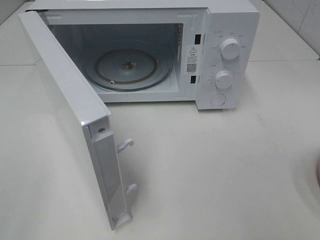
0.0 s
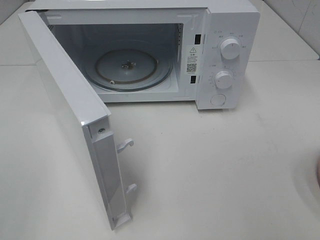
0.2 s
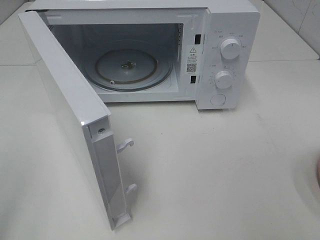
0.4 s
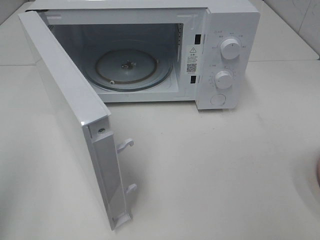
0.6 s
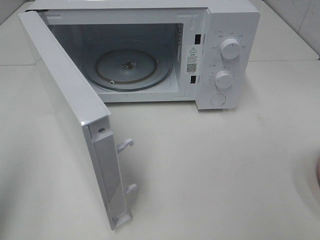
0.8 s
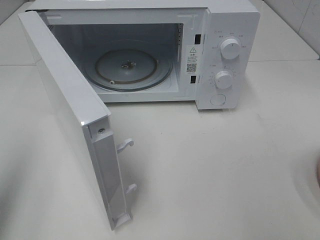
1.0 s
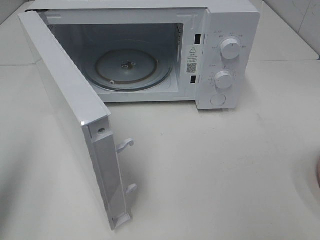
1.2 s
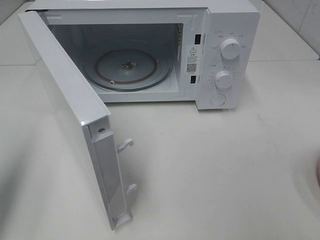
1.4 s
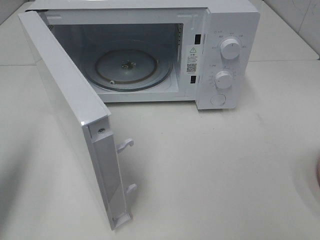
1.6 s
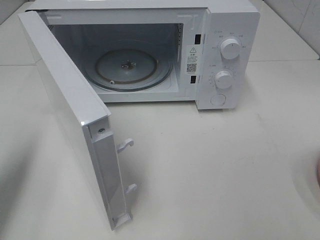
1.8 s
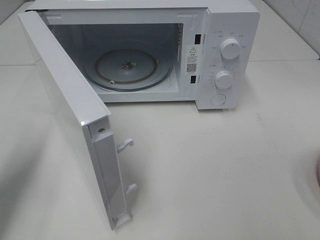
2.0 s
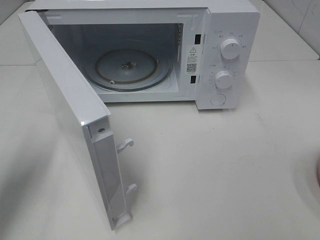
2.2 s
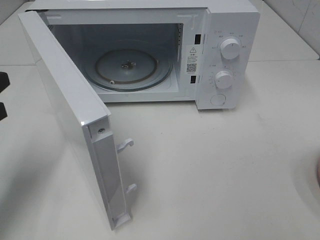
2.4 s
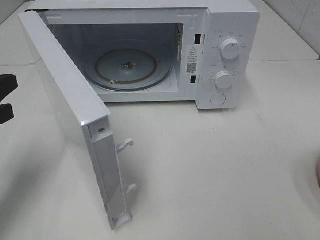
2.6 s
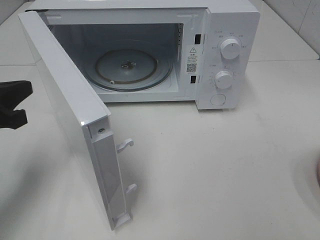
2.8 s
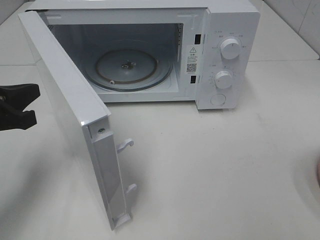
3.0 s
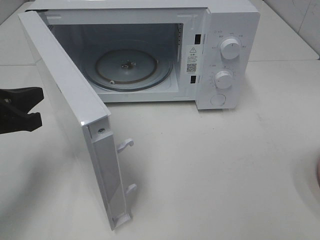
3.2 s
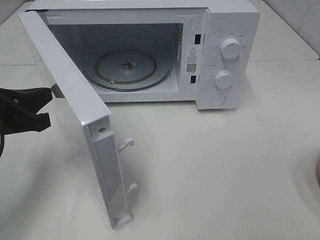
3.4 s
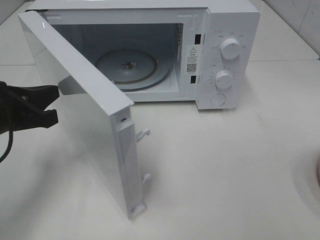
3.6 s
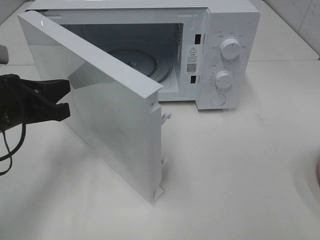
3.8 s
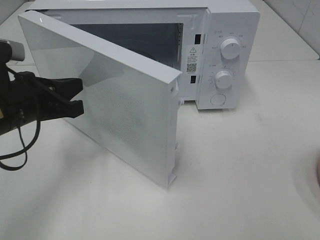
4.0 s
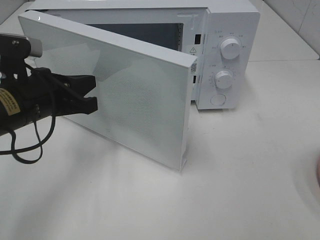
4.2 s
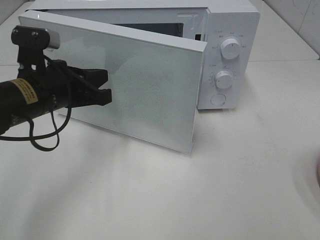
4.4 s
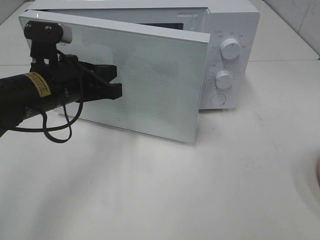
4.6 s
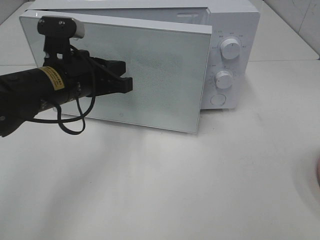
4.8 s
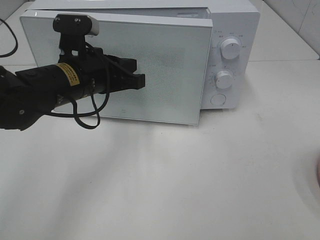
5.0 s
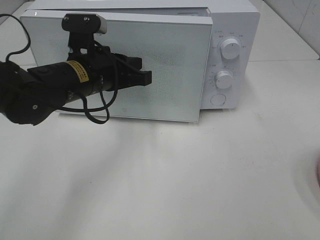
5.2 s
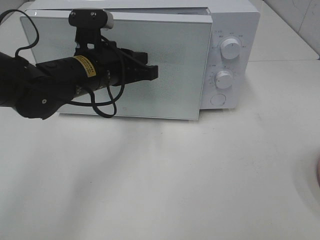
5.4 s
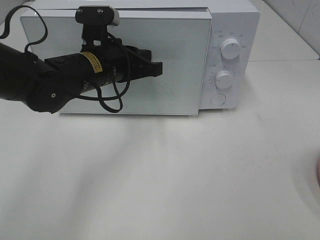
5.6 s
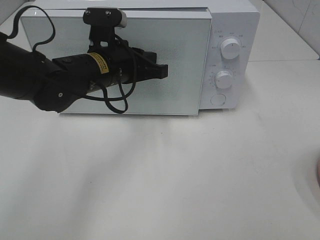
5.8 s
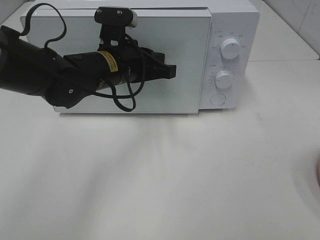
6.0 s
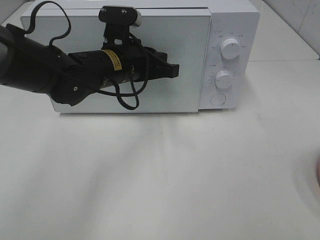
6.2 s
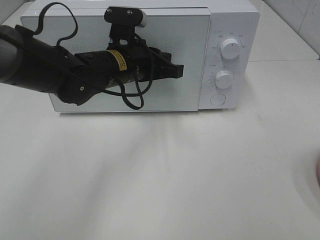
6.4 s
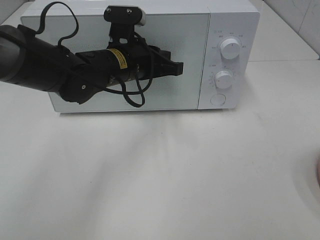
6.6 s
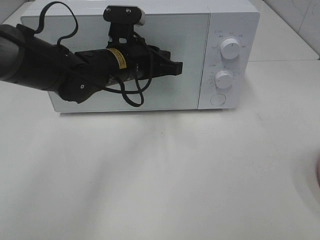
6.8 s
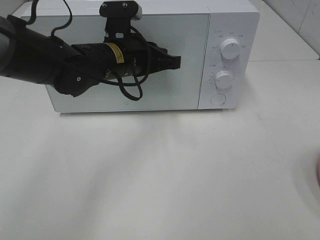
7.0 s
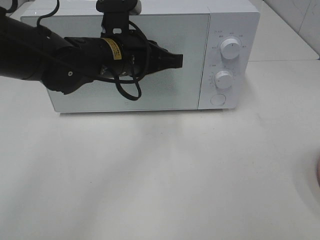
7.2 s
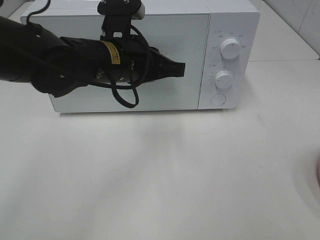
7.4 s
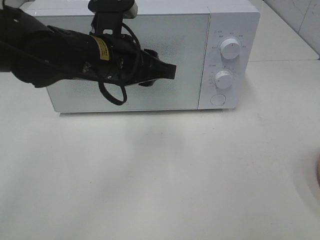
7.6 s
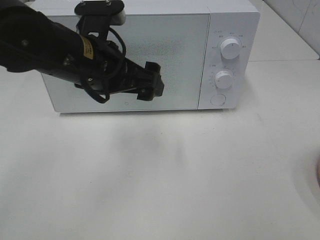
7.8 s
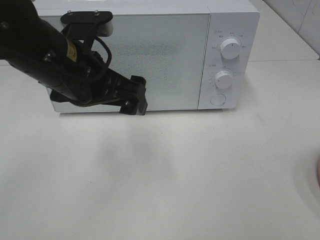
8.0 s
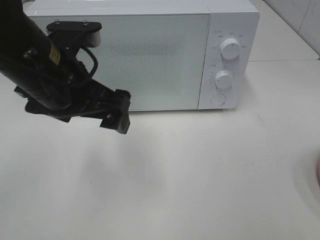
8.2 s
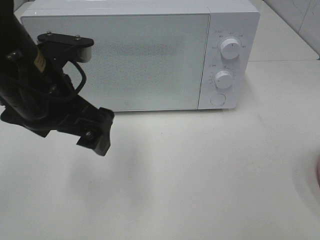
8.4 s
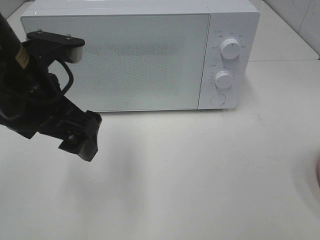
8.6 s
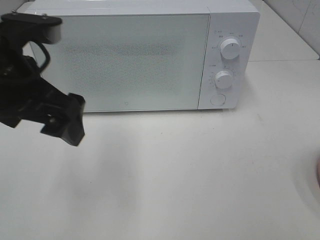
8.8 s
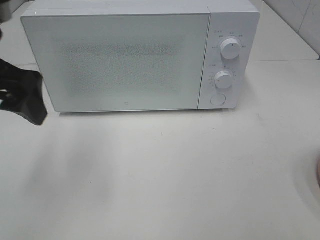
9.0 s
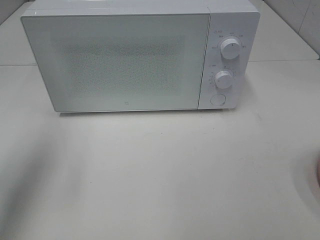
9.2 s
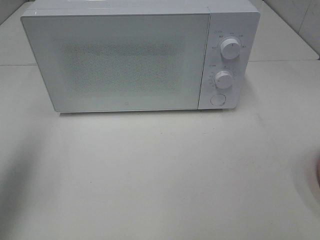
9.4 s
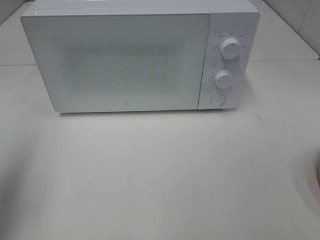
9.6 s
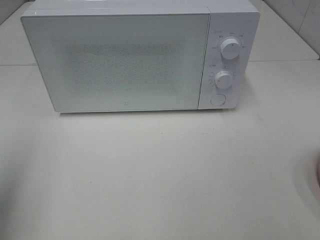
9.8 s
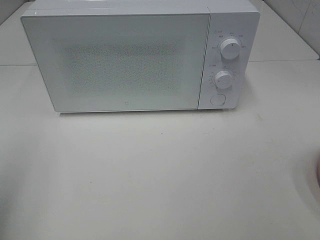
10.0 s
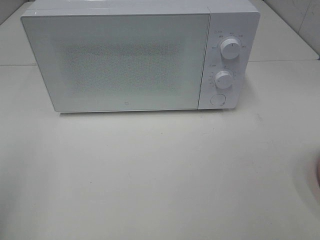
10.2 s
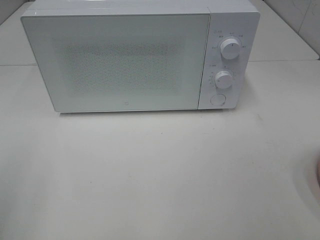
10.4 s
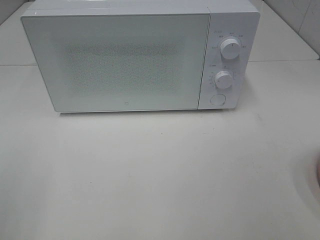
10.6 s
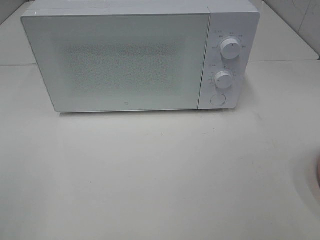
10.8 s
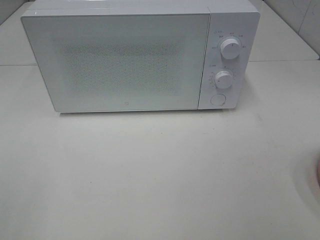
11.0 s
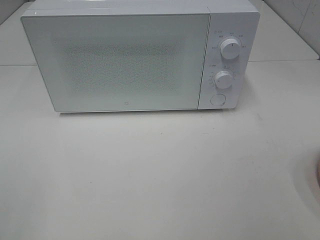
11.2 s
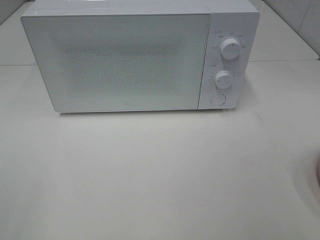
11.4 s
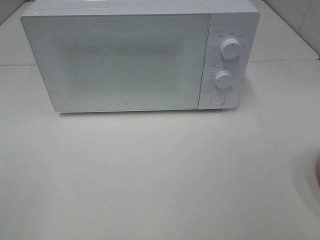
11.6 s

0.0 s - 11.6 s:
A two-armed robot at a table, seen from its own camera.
Task of the whole recording: Heat the burger.
Step, 0.0 s - 7.0 s: Left hand: close the microwave door.
0.0 s - 1.4 s: The left gripper heads forward, covering approximately 15 cm, and closes its fingers.
1.4 s - 2.8 s: The left gripper shifts about 15 cm forward, downward and to the right.
2.8 s - 4.4 s: The left gripper travels to the right and forward by approximately 10 cm.
4.4 s - 5.8 s: The left gripper heads to the right and forward, covering some 10 cm.
5.8 s - 7.2 s: The grippers move only a little.
7.2 s - 8.8 s: The left gripper moves to the left, backward and upward, some 15 cm, and opens its fingers.
8.8 s - 10.2 s: The left gripper shifts some 20 cm to the left and backward.

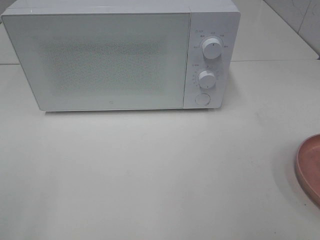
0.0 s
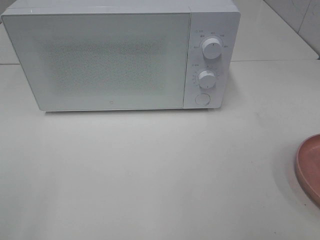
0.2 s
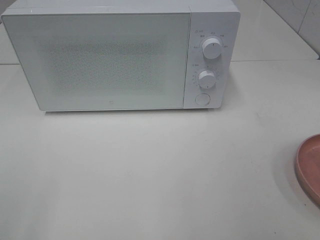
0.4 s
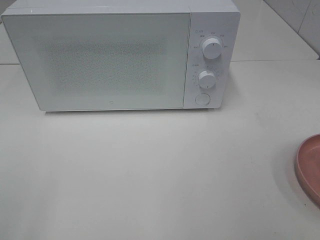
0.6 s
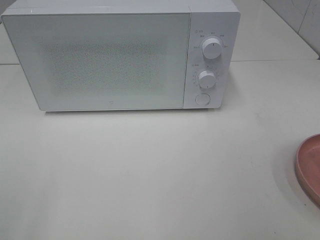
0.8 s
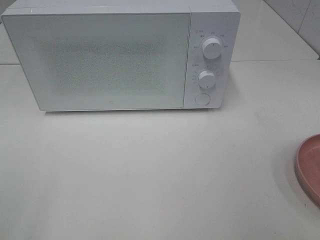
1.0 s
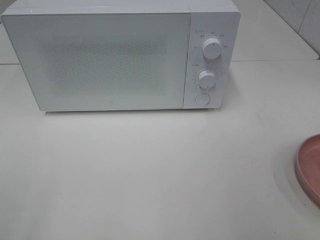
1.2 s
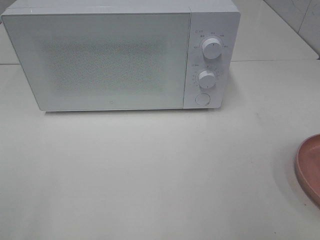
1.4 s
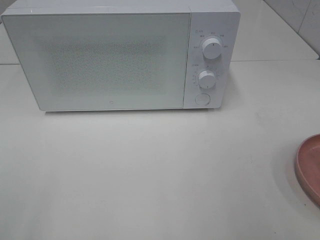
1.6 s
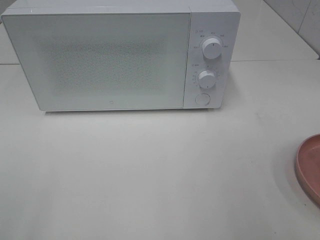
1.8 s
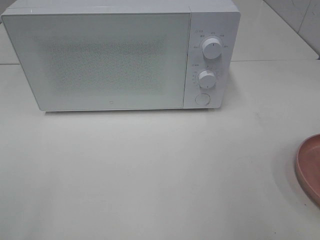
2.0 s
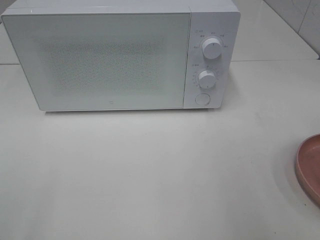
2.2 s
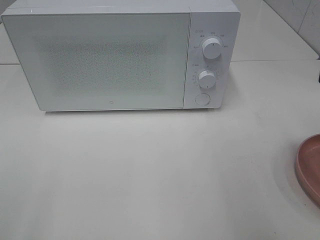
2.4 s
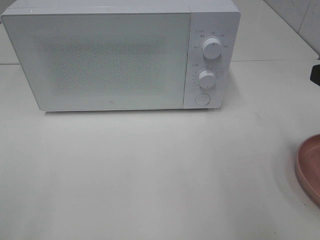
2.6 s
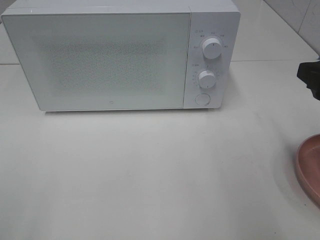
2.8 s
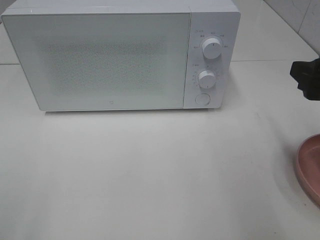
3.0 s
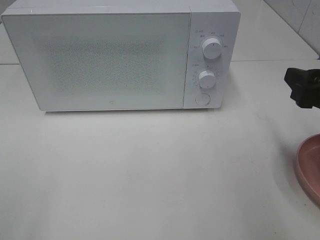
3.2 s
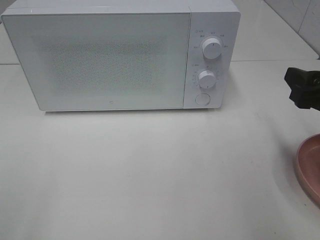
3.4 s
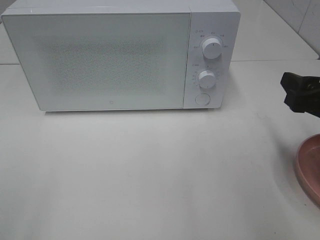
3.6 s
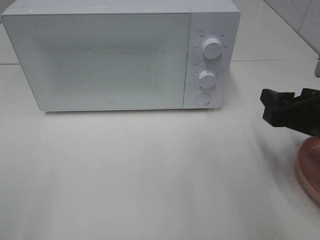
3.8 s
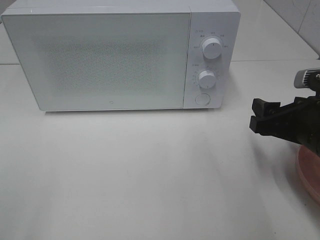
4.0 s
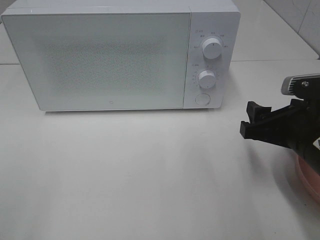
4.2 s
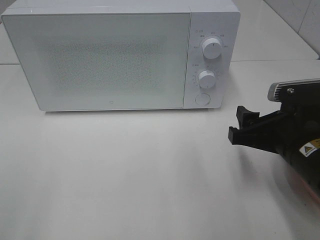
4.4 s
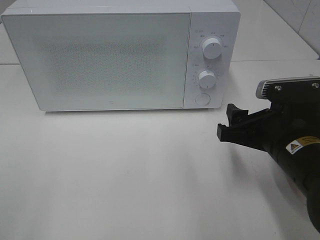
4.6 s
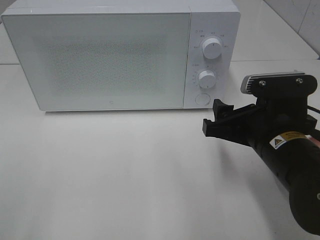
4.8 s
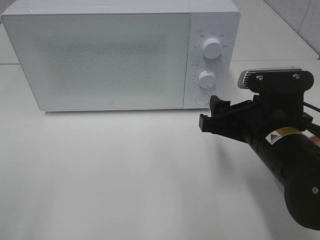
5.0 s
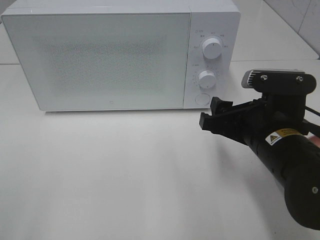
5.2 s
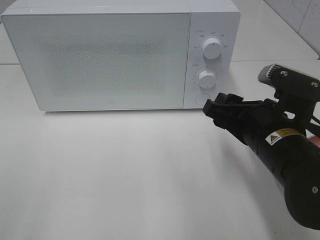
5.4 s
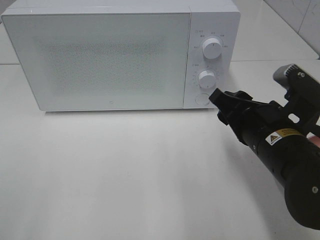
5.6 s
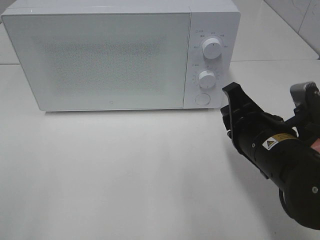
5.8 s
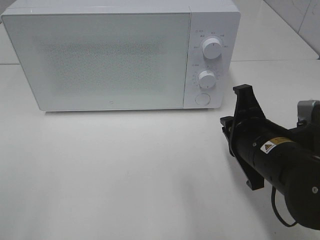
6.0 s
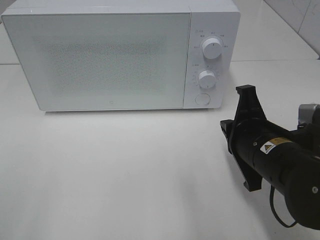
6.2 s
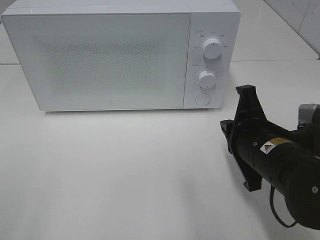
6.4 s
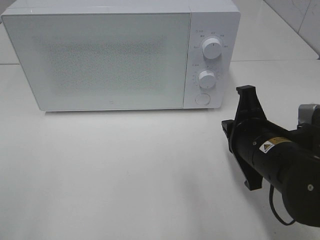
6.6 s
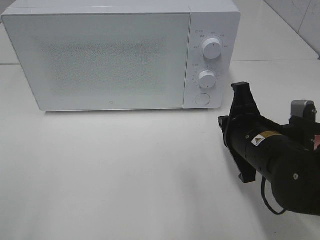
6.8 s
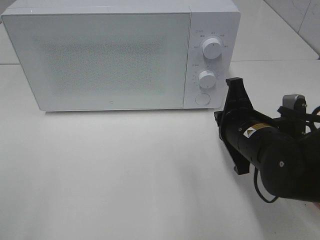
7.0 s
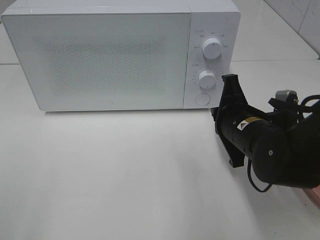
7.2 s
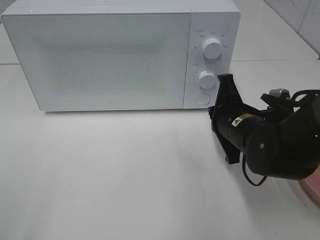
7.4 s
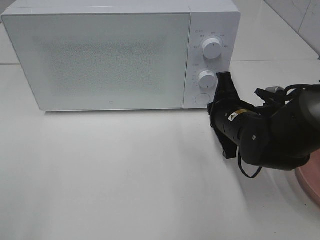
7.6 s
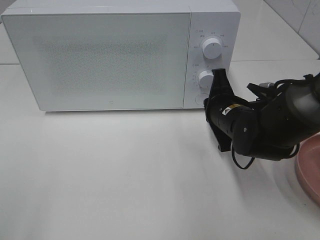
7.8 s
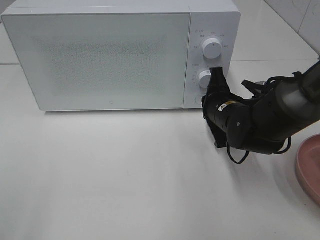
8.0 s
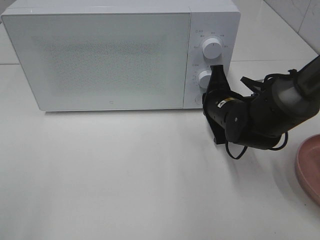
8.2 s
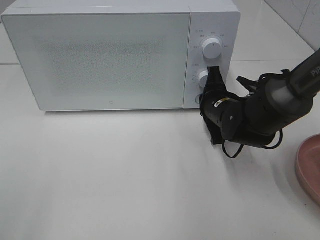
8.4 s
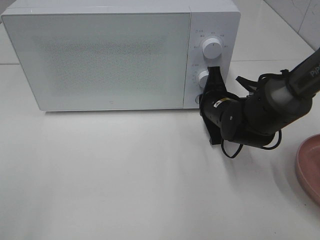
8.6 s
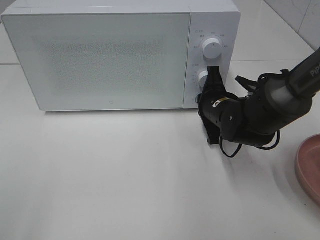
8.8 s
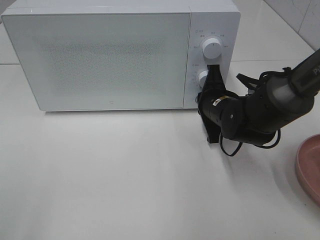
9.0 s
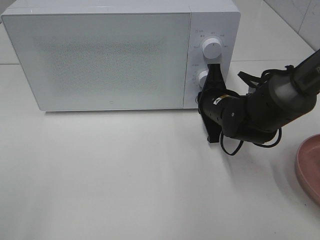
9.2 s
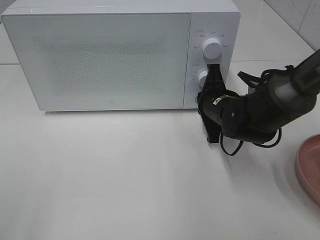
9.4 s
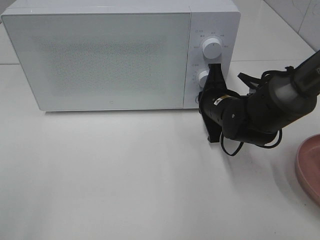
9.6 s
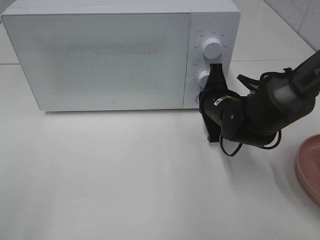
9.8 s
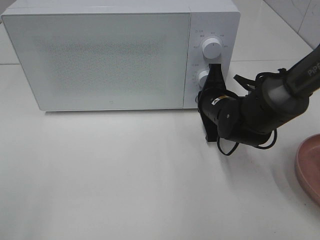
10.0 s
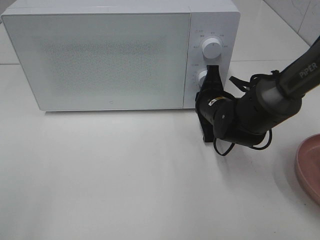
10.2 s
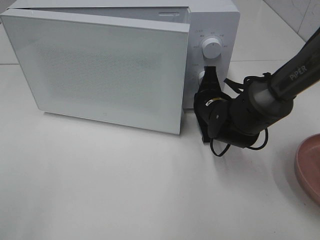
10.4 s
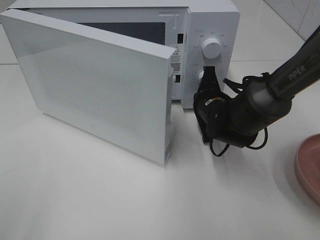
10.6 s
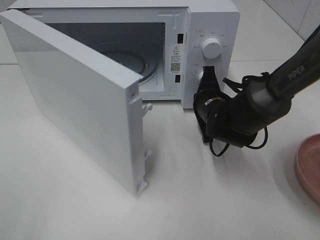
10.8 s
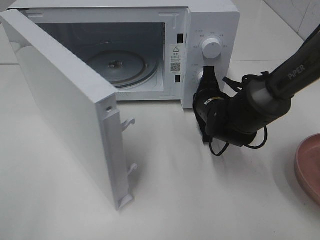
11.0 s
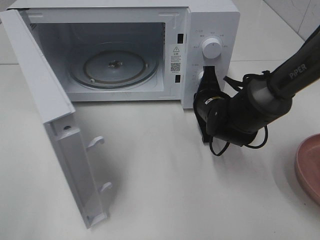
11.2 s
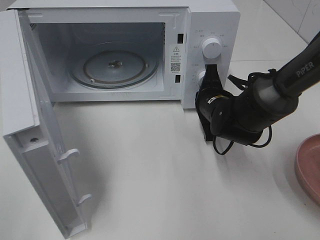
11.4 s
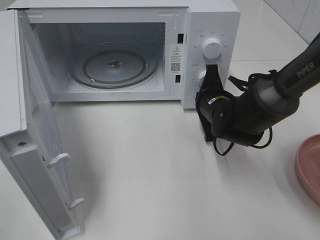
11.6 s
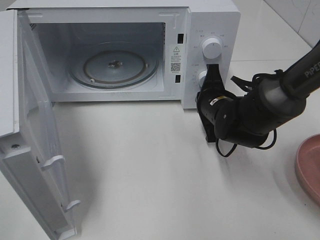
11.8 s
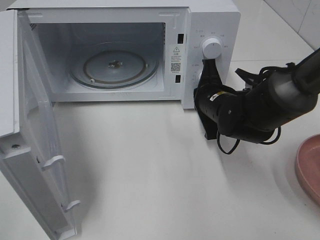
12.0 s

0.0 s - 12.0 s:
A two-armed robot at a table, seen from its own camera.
Task of the whole recording: Heat the burger.
Step, 0.0 s - 11.8 s: Right hand: press the switch.
1.6 s - 3.0 s: The right gripper travels forward and downward by about 15 cm.
3.0 s - 4.4 s: The right gripper shifts roughly 10 cm downward and to the left.
4.4 s - 6.0 s: The right gripper closes.
6.0 s - 7.6 s: The right gripper is displaced forward by approximately 10 cm.
7.6 s - 9.0 s: The right gripper travels forward by roughly 5 cm.
9.0 s - 10.4 s: The grippers stay close to where they were, moving slightly.
